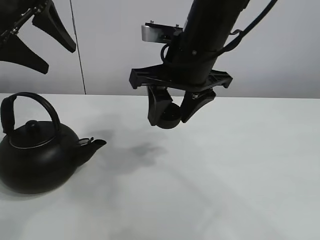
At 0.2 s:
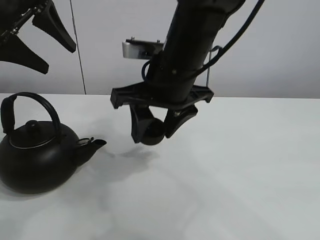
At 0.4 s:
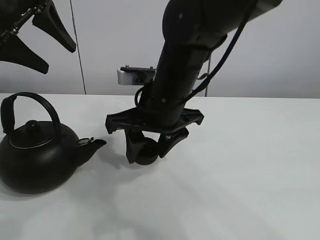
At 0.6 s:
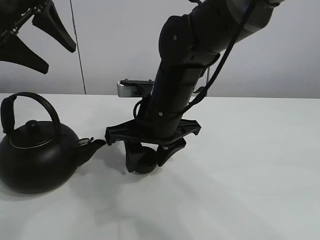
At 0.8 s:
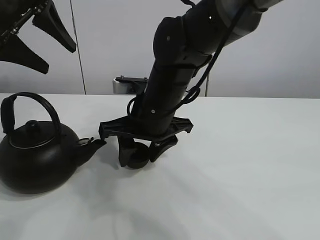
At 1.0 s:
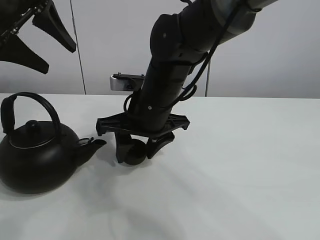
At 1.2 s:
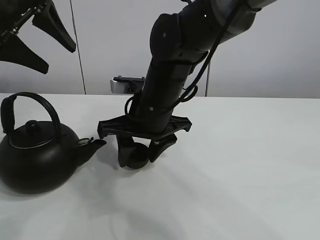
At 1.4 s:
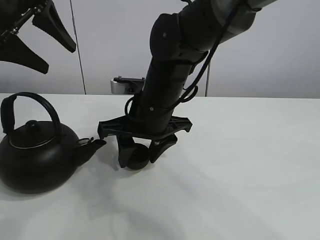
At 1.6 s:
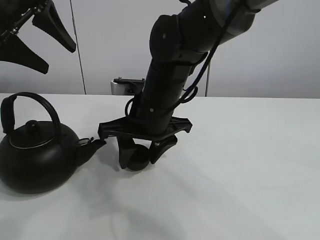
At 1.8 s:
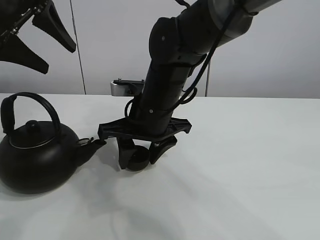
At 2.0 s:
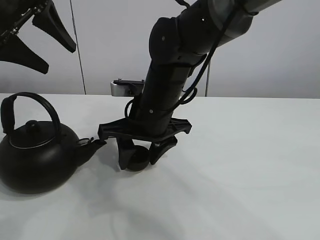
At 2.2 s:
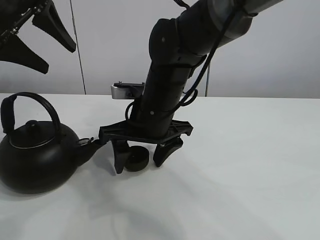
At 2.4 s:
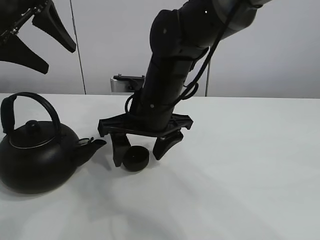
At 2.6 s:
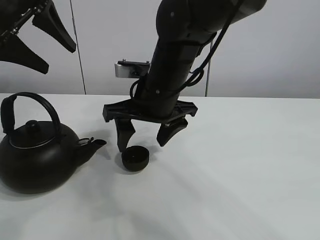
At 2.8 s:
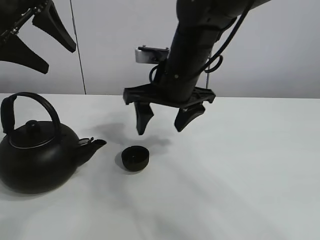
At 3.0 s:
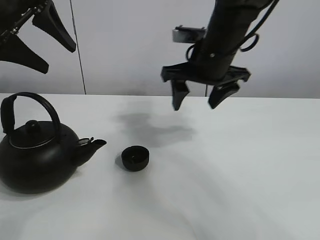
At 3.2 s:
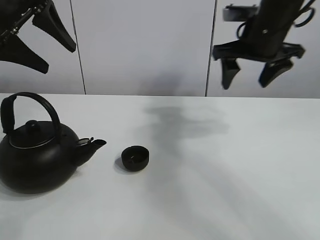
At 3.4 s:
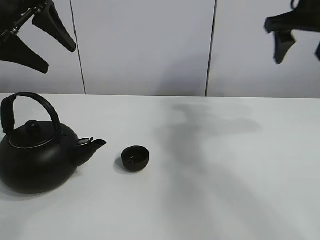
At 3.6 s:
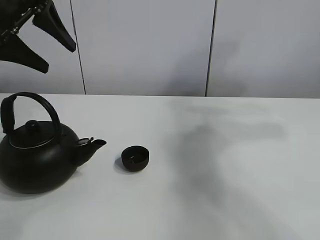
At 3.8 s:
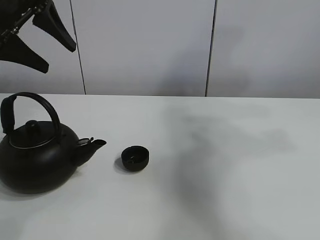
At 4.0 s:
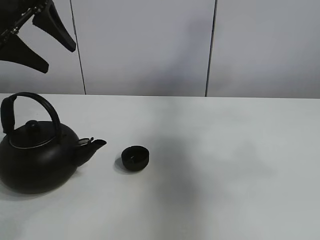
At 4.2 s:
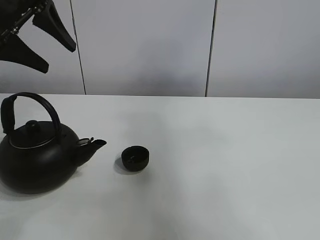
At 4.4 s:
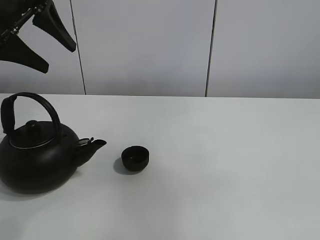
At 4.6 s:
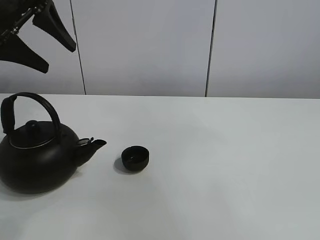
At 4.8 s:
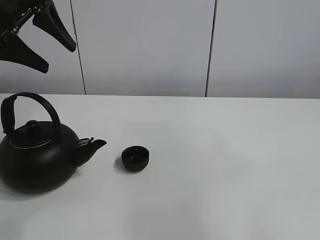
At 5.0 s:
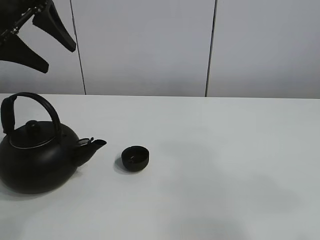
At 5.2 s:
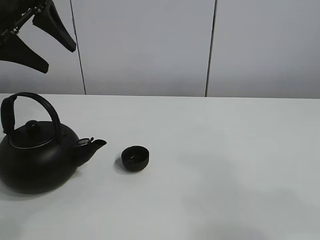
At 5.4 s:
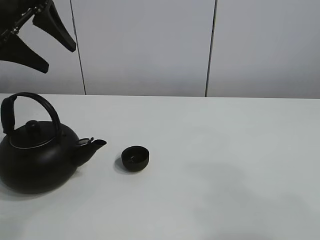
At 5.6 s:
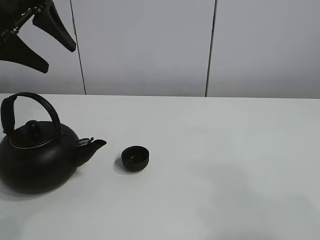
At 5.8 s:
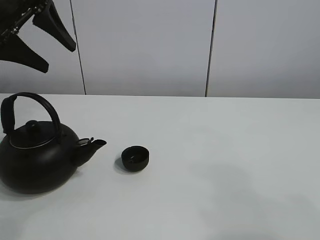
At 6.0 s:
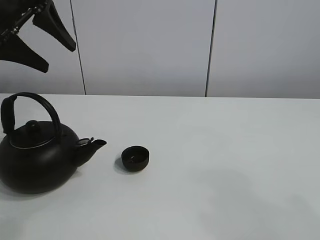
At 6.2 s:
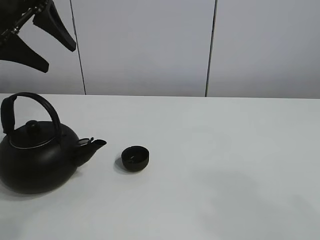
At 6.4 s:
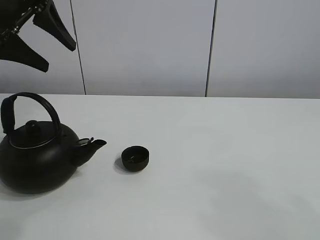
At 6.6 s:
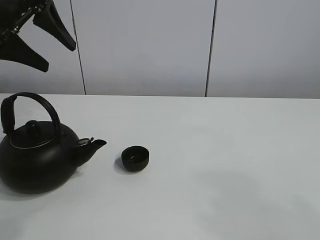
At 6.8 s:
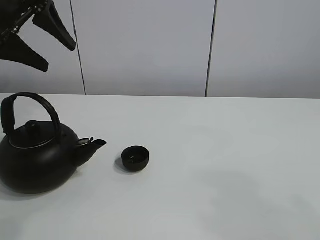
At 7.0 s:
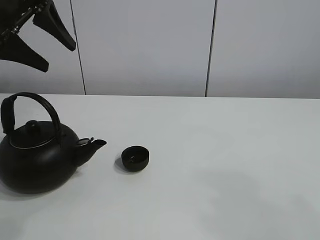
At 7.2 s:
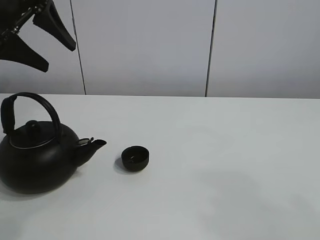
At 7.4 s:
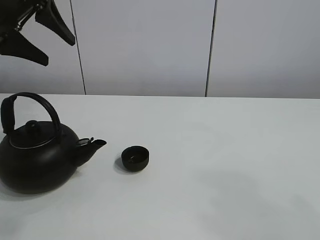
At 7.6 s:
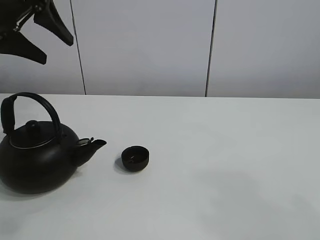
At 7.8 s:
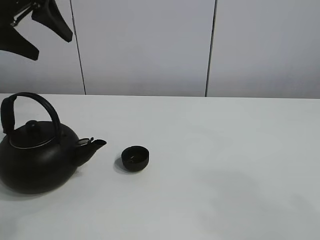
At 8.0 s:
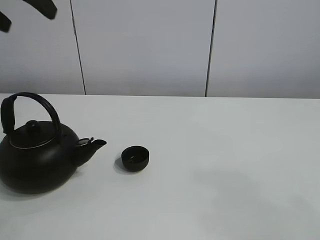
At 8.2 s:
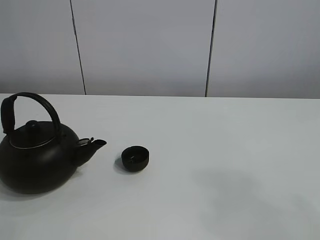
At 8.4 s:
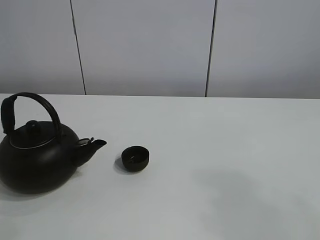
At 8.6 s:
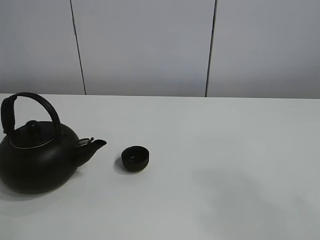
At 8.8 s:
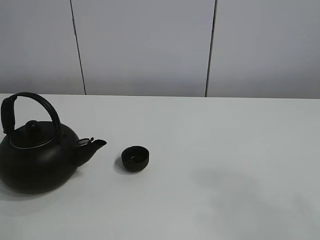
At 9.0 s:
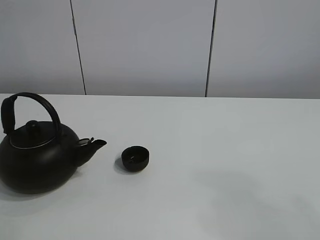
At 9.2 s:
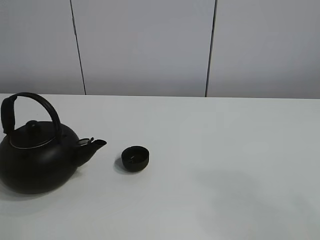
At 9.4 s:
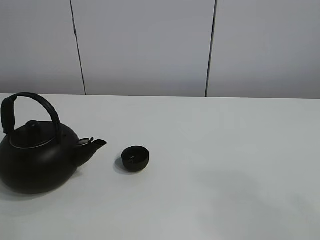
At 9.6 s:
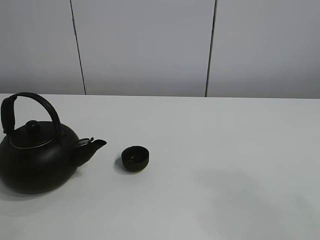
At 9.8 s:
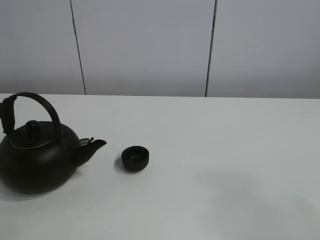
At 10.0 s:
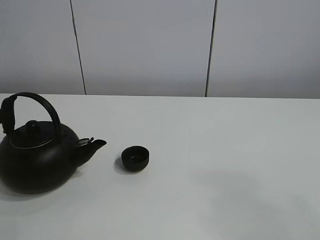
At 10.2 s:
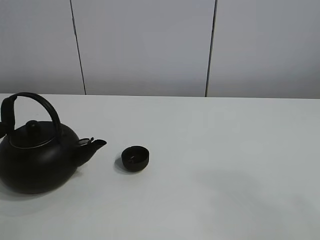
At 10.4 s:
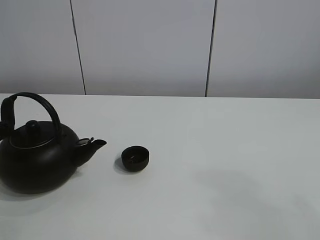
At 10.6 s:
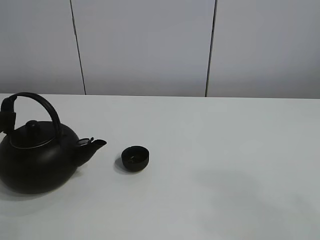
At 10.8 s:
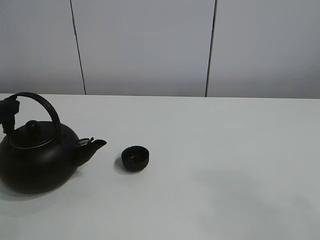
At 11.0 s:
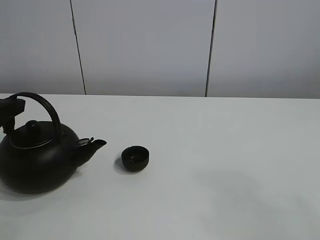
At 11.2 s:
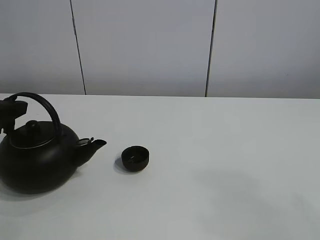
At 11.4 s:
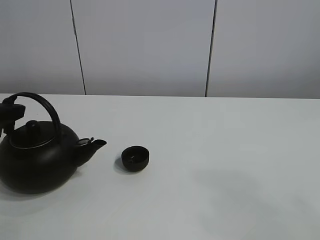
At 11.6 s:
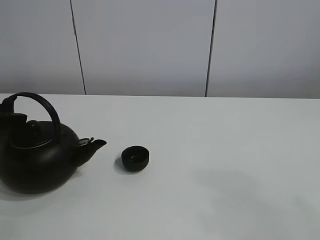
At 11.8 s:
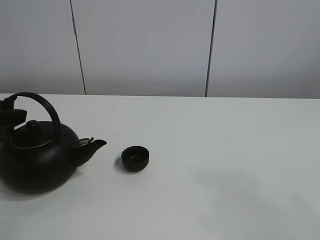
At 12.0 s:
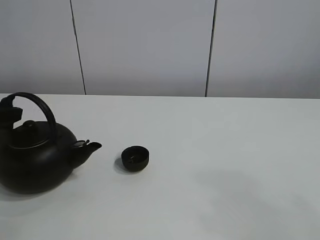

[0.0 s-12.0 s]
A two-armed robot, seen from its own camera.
Task of the whole recording: pour tea into the teacup.
Step, 0.0 to 2.0 s: Place the teacup in the center of view with the right gripper.
0.0 to 1.6 s: The right gripper shifts some 10 cm downward and to the left.
1.6 to 3.0 s: The right gripper shifts roughly 15 cm to the right and upward, and opens.
3.0 to 4.4 s: The right gripper moves backward, upward and to the right, roughly 50 cm.
4.4 to 6.0 s: The right gripper heads downward, covering approximately 25 cm.
6.0 to 7.6 s: The grippers make only small movements.
7.6 to 9.0 s: The left gripper moves backward, approximately 25 cm, and opens.
10.4 to 12.0 s: The left gripper closes up.

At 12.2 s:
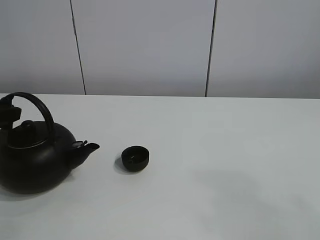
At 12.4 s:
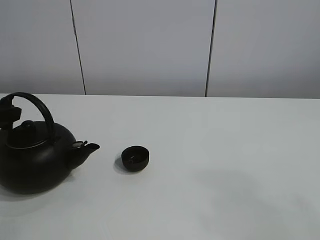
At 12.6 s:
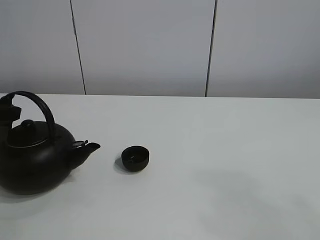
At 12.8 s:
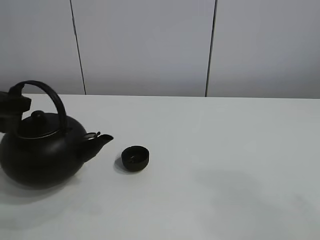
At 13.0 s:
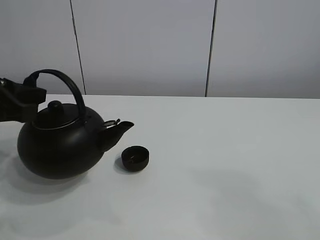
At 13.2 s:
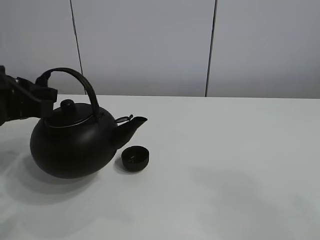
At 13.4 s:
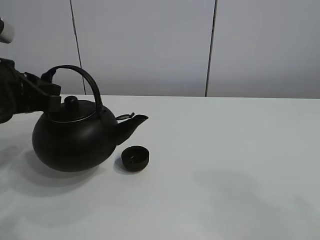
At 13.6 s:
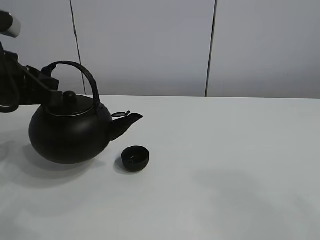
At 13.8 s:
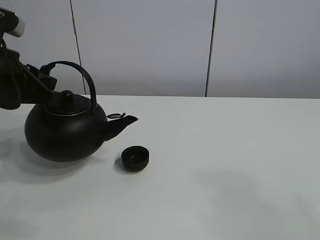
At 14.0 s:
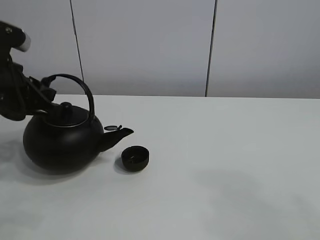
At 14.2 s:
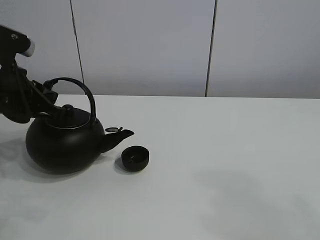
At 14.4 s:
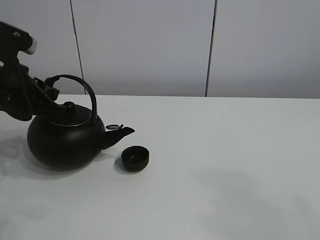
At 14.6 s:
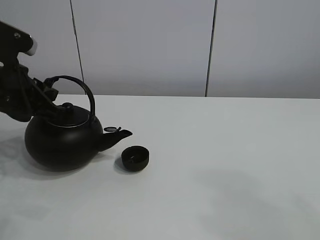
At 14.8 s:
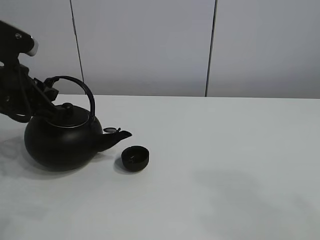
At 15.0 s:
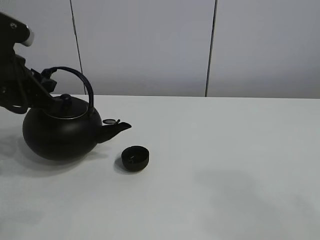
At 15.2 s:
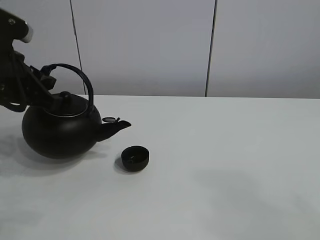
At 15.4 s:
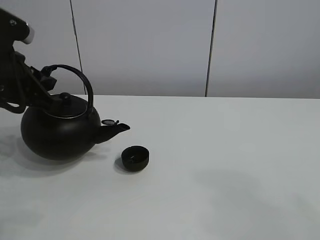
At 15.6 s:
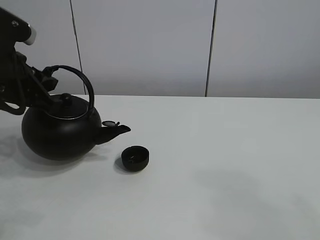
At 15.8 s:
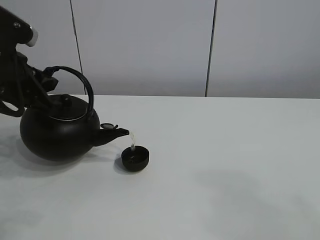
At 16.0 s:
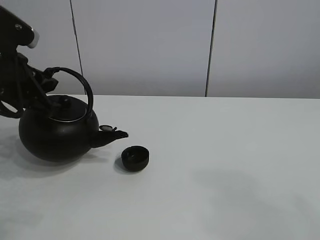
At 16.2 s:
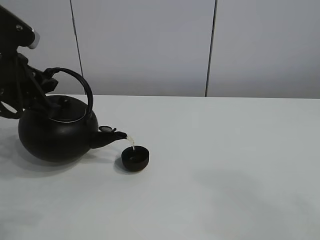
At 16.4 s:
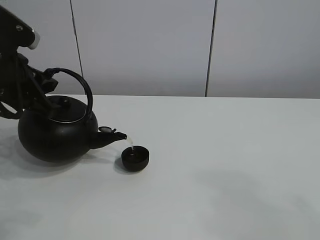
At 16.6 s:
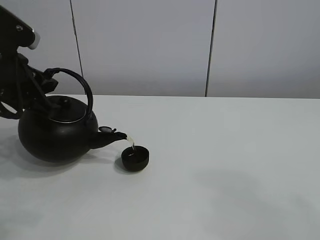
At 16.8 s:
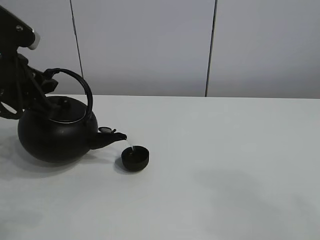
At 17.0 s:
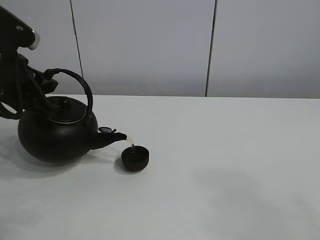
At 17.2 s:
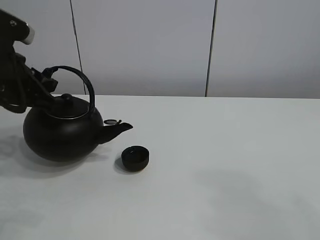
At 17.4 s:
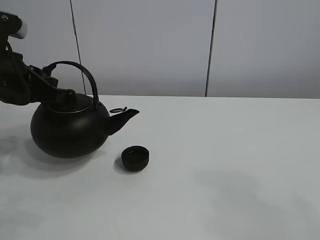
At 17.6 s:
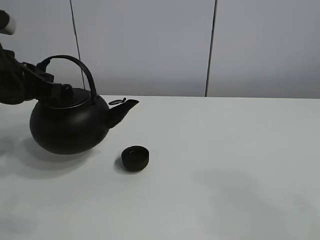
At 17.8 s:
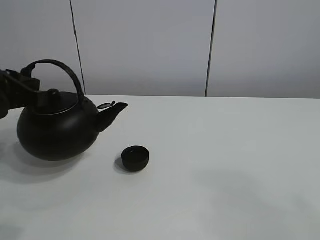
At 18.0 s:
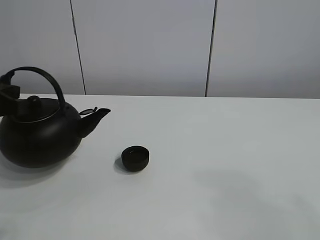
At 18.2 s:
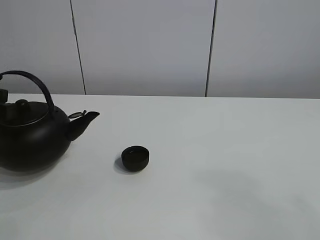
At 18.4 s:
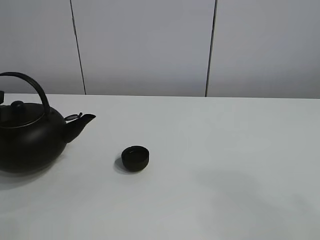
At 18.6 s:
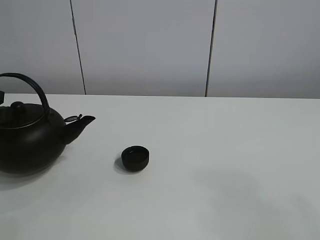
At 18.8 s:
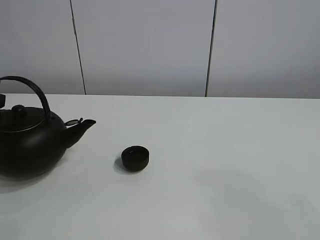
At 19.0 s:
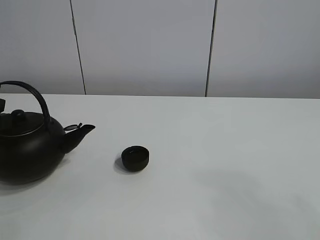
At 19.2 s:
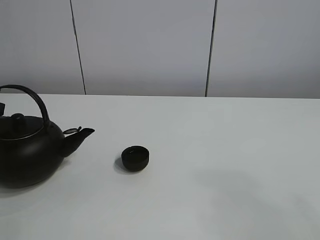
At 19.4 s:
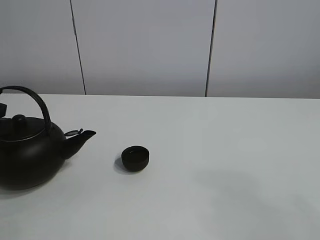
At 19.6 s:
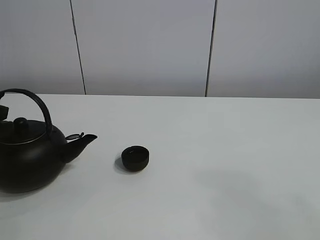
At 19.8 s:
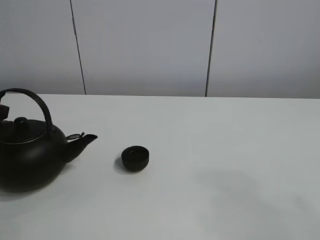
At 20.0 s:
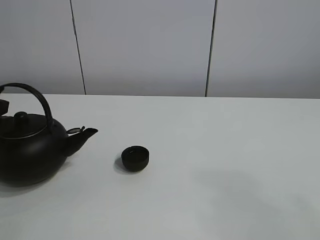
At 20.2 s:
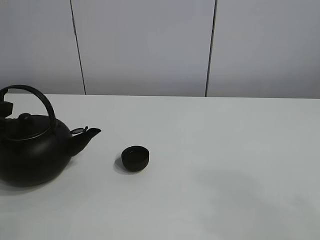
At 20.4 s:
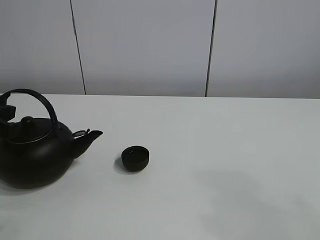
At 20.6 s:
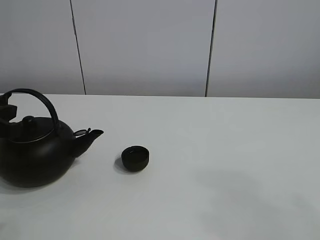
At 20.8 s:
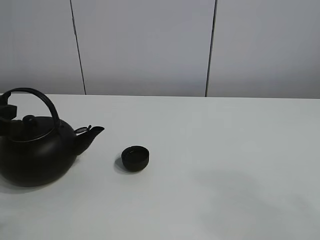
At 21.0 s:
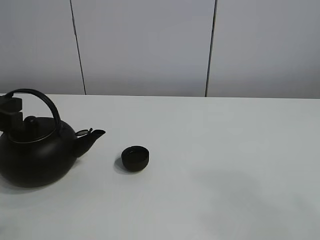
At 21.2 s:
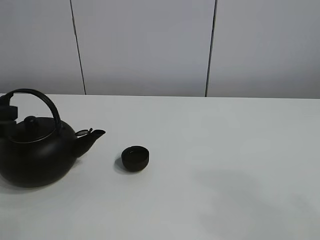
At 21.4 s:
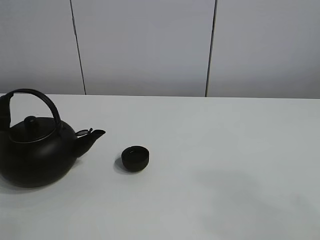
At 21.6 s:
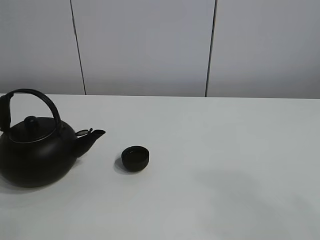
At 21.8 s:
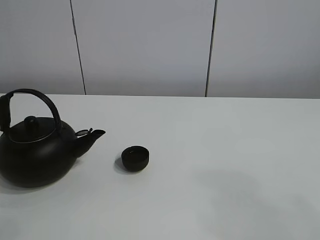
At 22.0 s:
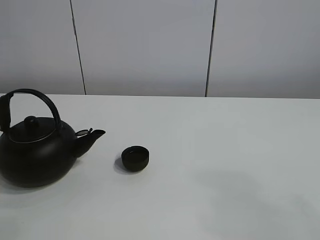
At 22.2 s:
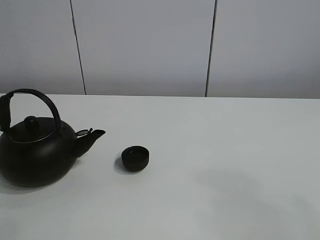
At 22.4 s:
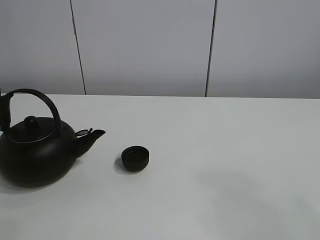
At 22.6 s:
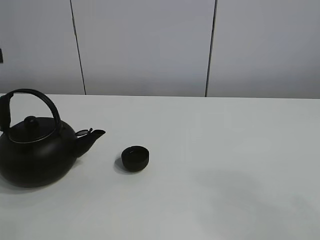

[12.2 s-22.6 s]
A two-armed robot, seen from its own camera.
Task of the whole recording: pour tea into the teacup.
Step, 12.8 to 17.2 s: Pour tea into the teacup with the left gripper.
12.2 to 13.6 s: The left gripper shifts some 10 cm to the right and upward.
13.6 to 16.6 s: The grippers stay close to where they were, moving slightly.
16.6 to 18.2 s: The left gripper goes about 5 cm to the left.
18.2 to 21.2 s: The grippers make only small movements.
